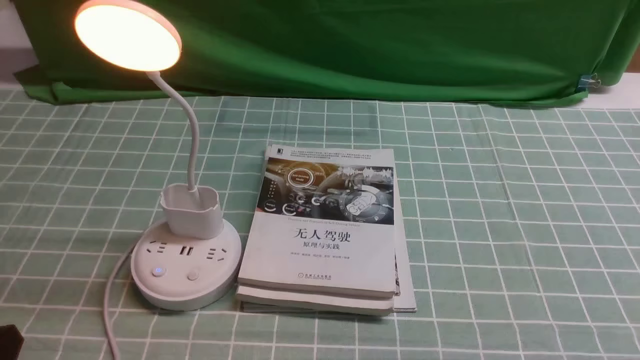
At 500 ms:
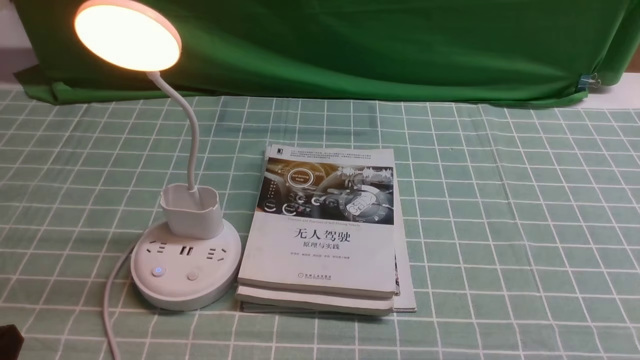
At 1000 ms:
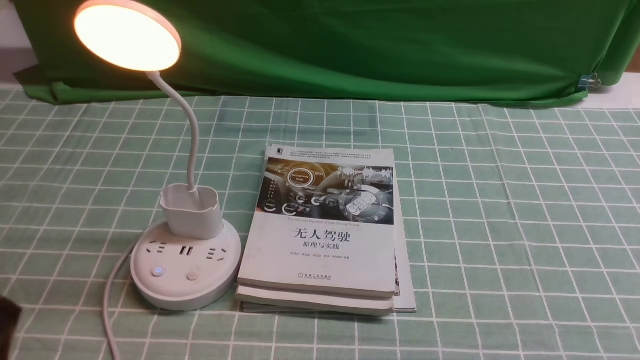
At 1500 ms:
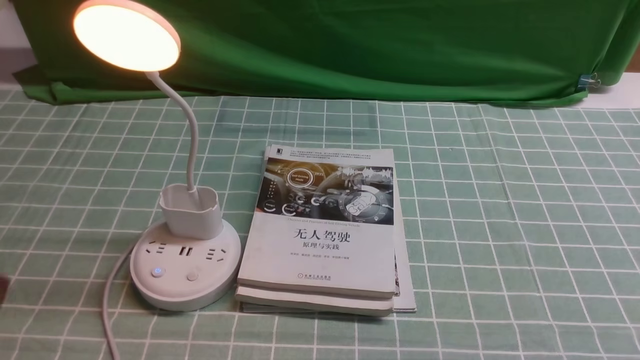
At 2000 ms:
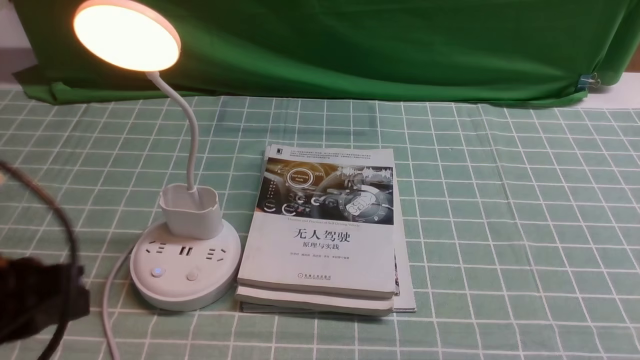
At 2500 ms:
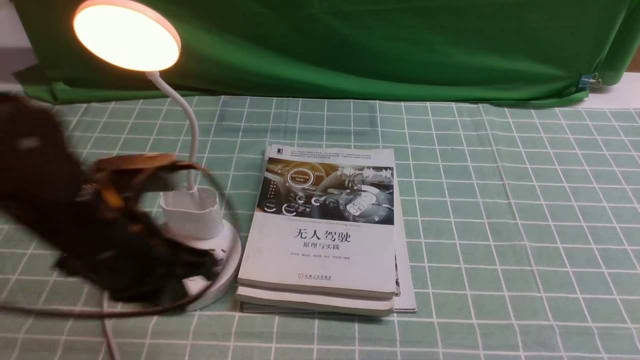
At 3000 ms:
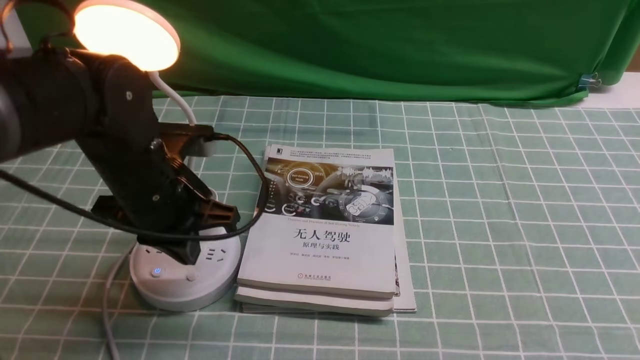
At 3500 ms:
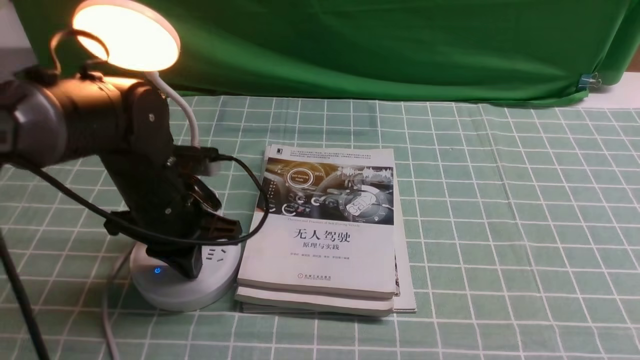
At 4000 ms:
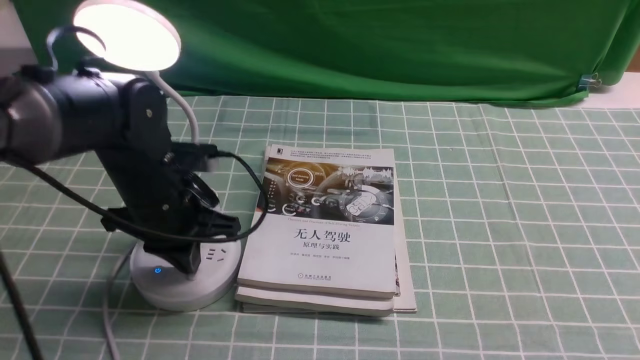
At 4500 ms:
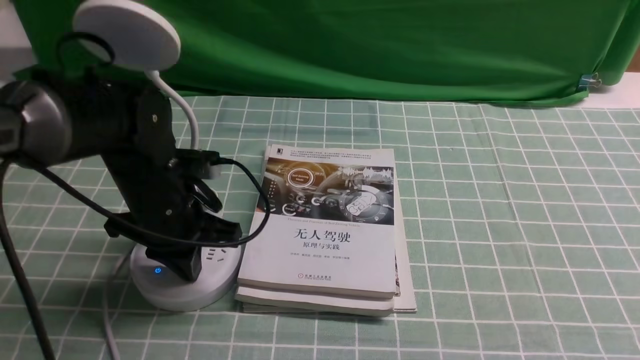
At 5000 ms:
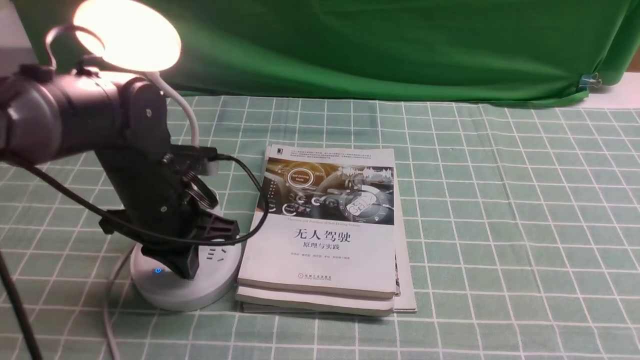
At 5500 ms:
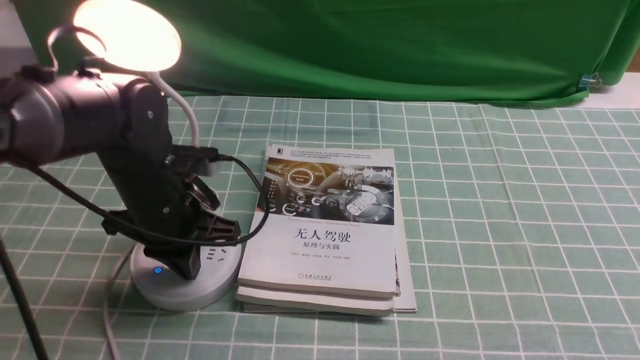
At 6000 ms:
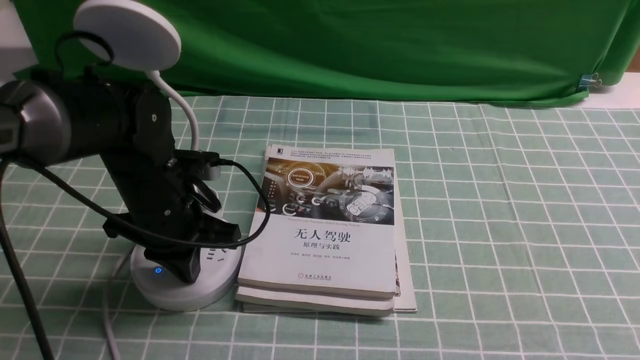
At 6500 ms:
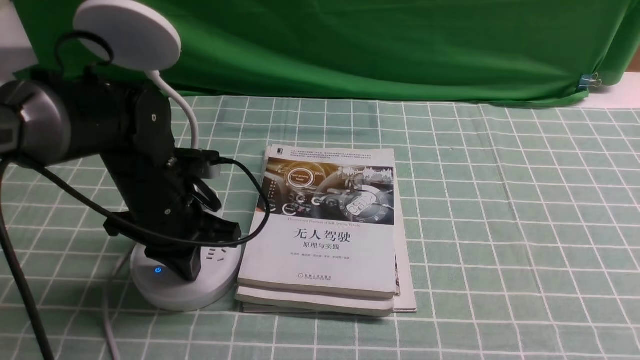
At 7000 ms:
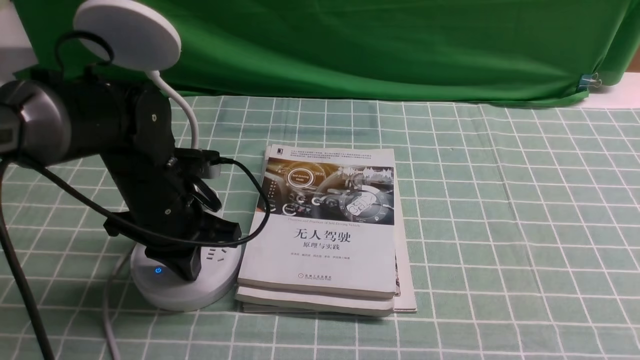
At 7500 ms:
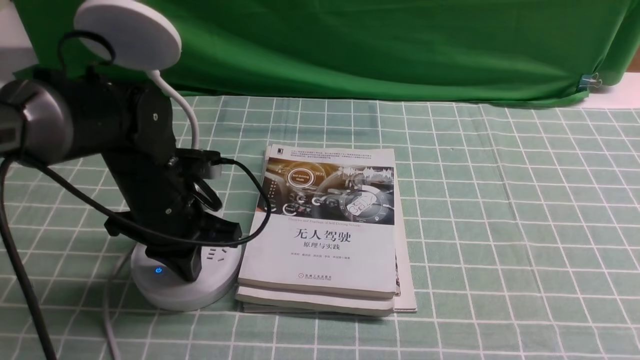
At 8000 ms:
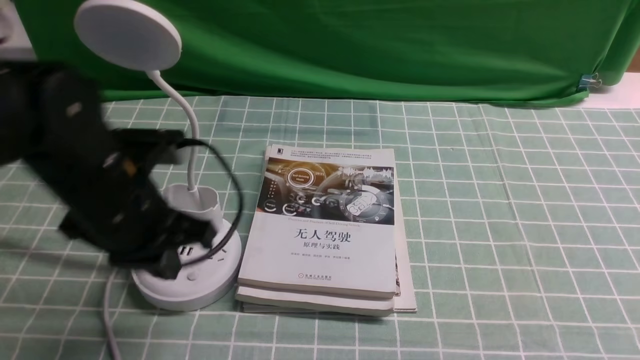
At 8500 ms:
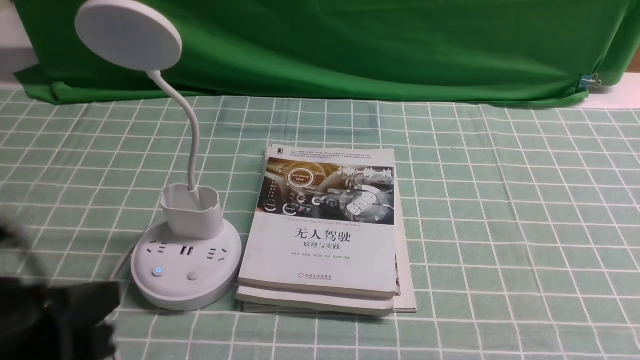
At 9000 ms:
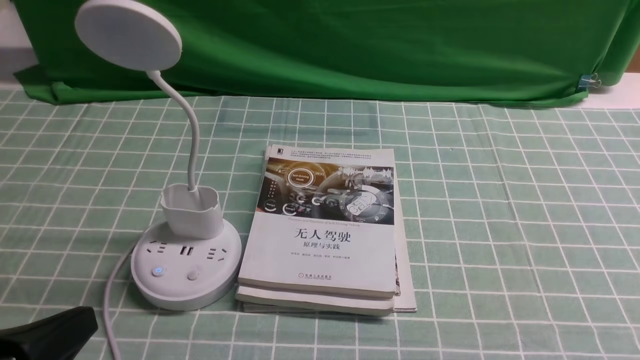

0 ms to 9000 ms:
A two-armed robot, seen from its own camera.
Task of the whole recording: turn off the desk lamp on the blue coffee tablecloth by hand.
Step, 0 ms to 7500 ms: use the left arm to press the button switch on the lamp holder.
2000 ms to 4500 ms: The left gripper shifts roughly 25 cm forward and downward, and closes, then reopens.
4500 ms to 7000 ms: Both grippers stay put.
7000 ms to 9000 ms: The left gripper moves backward, approximately 25 cm.

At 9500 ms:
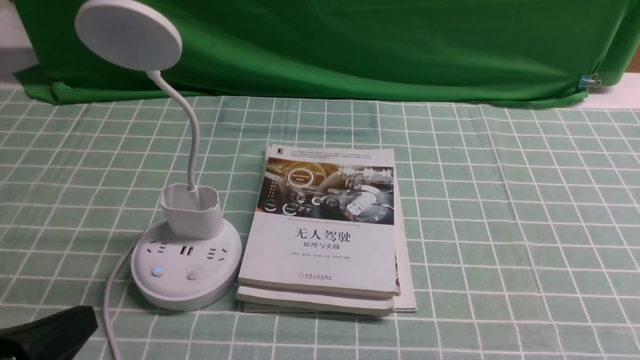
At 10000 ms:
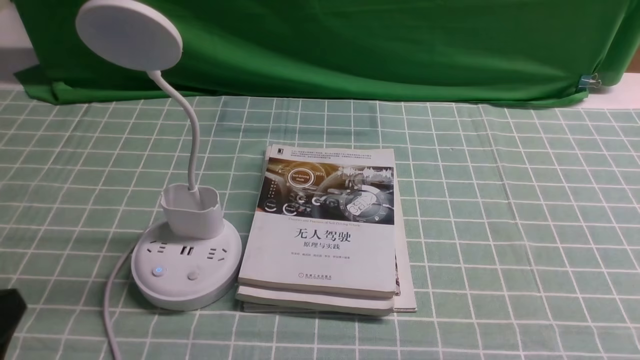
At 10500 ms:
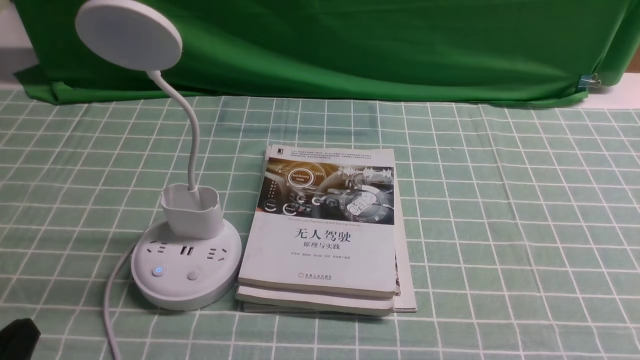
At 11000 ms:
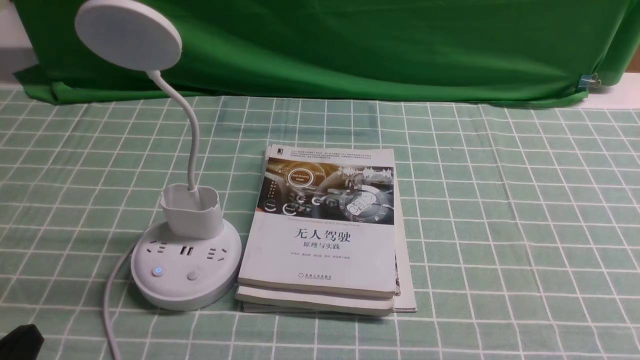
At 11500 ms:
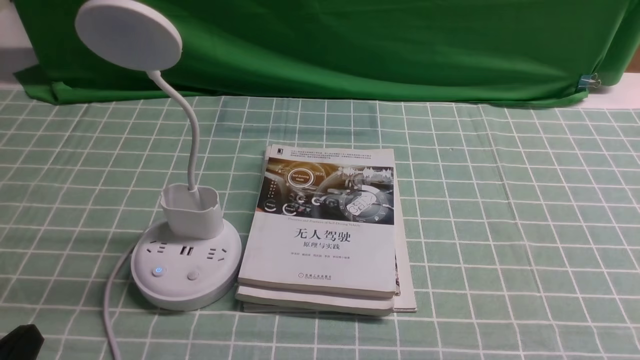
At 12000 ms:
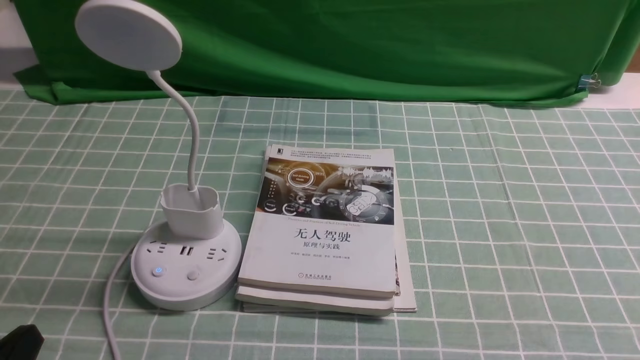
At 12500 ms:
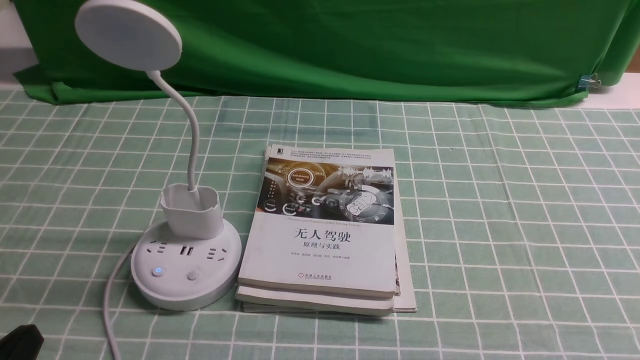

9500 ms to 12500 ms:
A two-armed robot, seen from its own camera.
Task of the whole recording: turn off the desk lamp on the blue coffee tablecloth by hand.
9500 ms to 11000 ms: The left gripper goes about 5 cm downward.
11000 ms to 12500 ms: Both grippers stay put.
